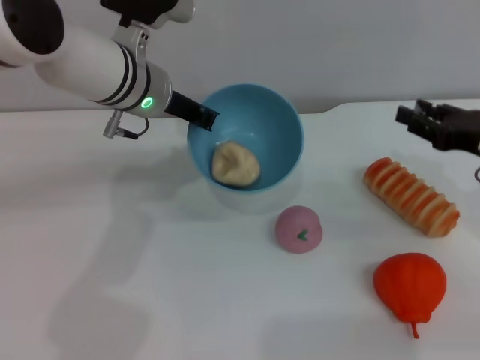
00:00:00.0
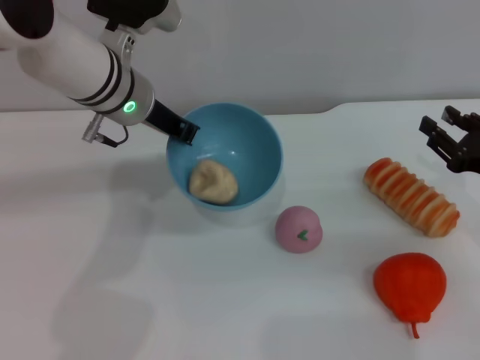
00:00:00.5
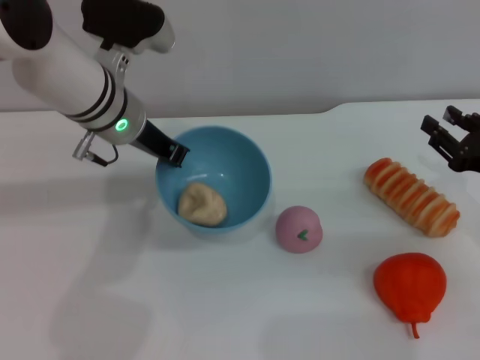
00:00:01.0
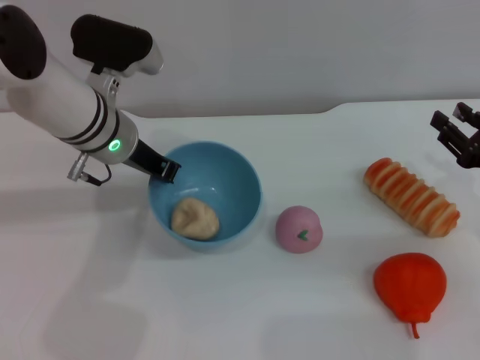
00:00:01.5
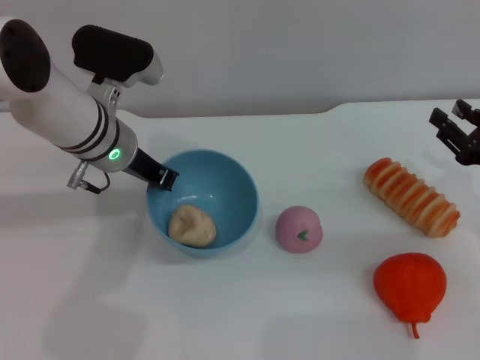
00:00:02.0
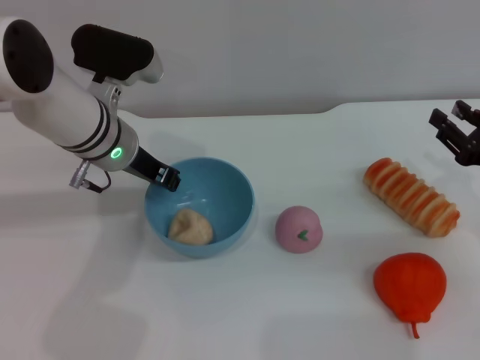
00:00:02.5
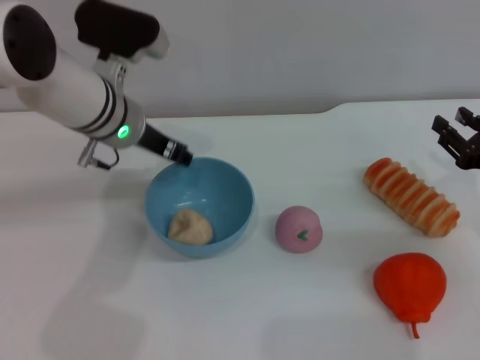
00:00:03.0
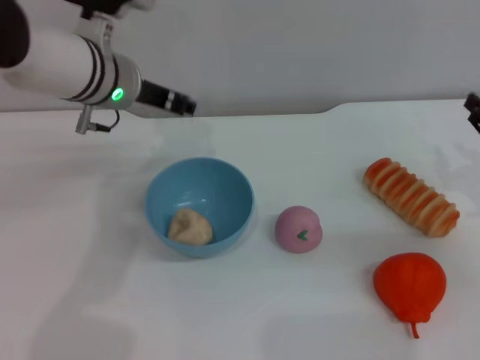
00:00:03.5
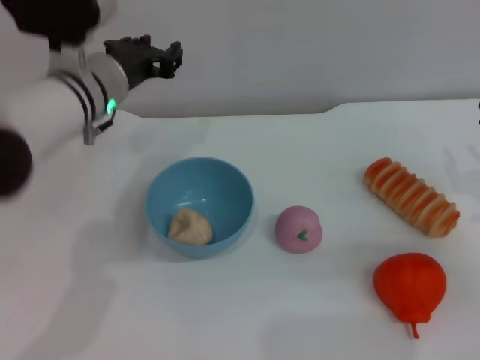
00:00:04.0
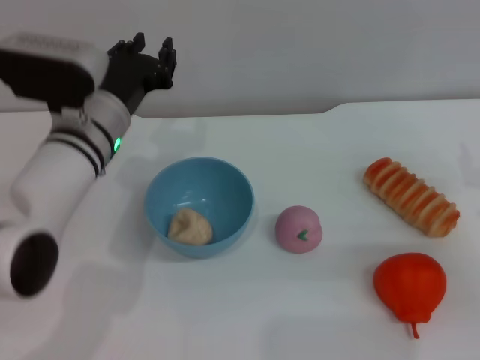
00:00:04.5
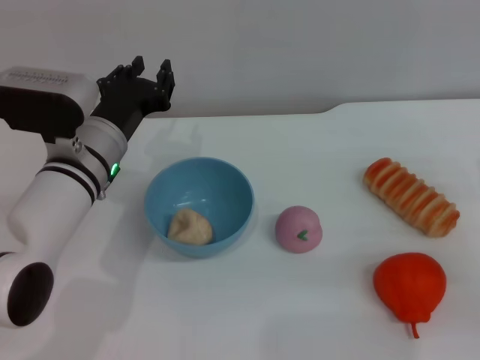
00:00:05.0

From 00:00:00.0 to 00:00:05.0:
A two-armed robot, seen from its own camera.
Task of the whole recording: put the egg yolk pastry into the blue bowl and pour it out repeatedly.
Step, from 00:00:00.0 to 00:00:03.0: Place the bowl on the table.
From 00:00:00.0 to 00:00:02.5: The left gripper moves some 5 cm.
From 00:00:02.5 to 00:00:05.0: The left gripper ends up approximately 5 cm from where it was.
